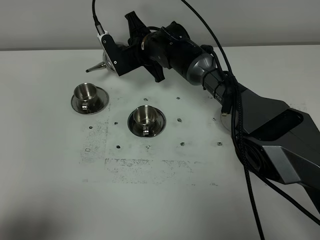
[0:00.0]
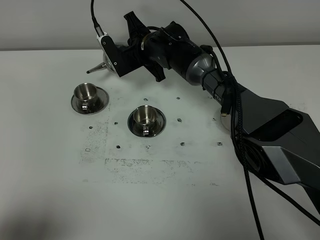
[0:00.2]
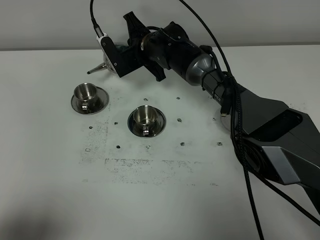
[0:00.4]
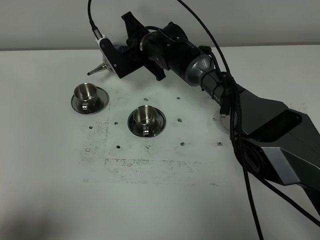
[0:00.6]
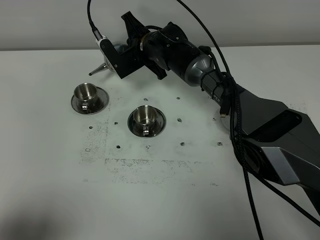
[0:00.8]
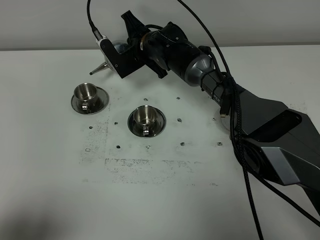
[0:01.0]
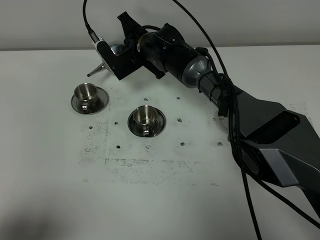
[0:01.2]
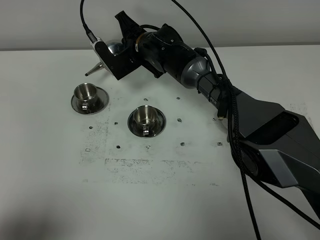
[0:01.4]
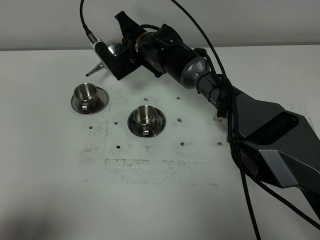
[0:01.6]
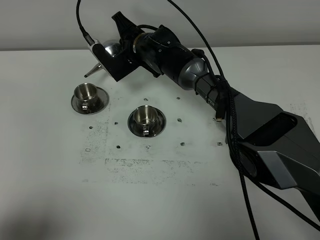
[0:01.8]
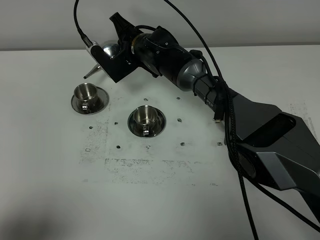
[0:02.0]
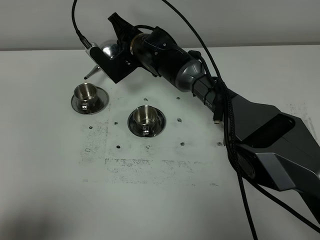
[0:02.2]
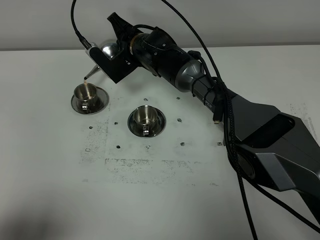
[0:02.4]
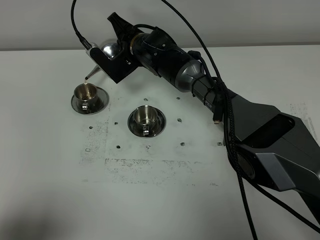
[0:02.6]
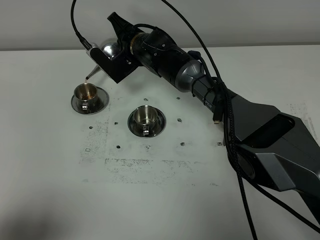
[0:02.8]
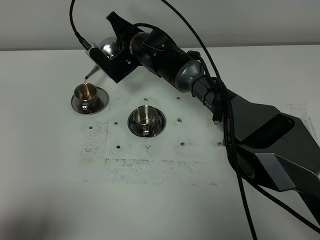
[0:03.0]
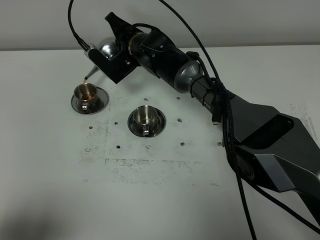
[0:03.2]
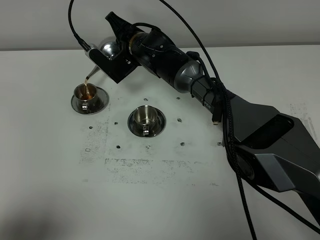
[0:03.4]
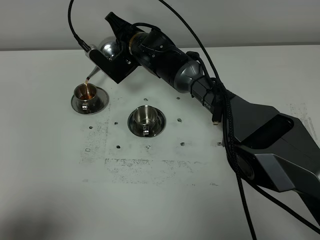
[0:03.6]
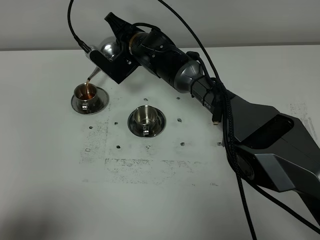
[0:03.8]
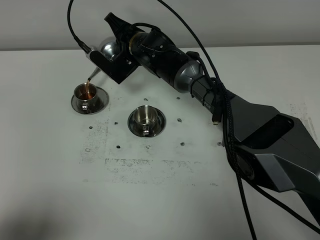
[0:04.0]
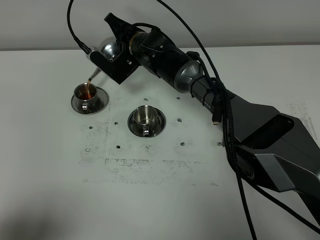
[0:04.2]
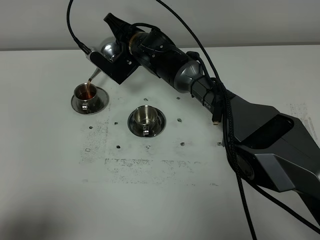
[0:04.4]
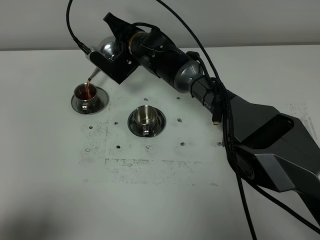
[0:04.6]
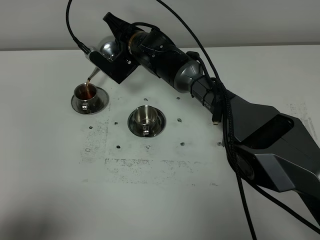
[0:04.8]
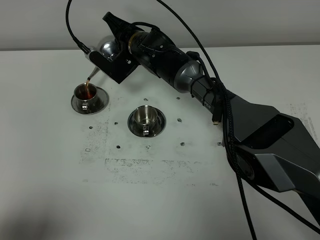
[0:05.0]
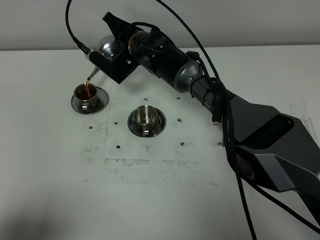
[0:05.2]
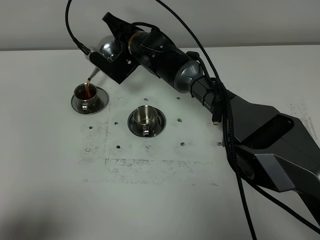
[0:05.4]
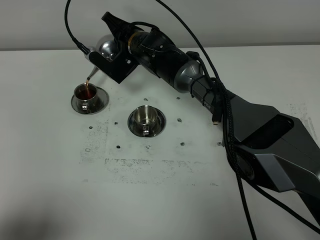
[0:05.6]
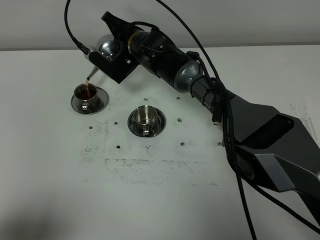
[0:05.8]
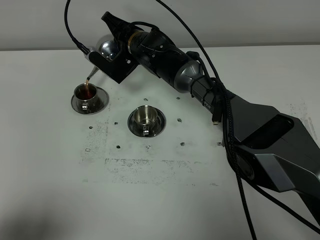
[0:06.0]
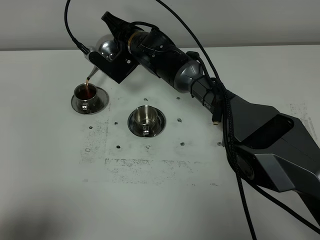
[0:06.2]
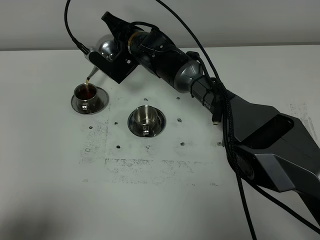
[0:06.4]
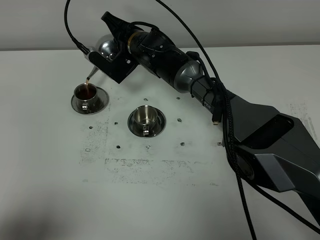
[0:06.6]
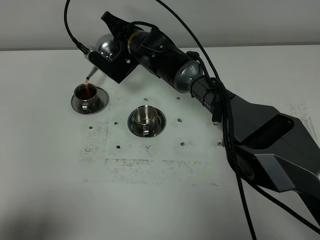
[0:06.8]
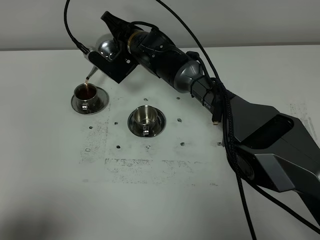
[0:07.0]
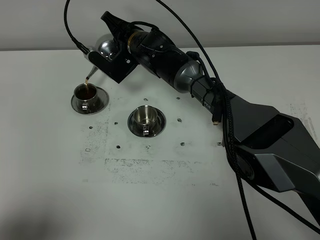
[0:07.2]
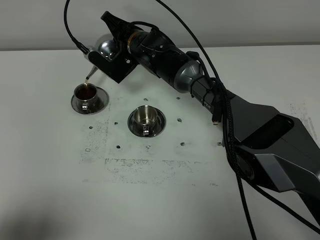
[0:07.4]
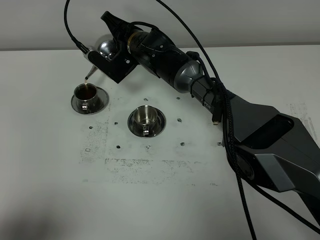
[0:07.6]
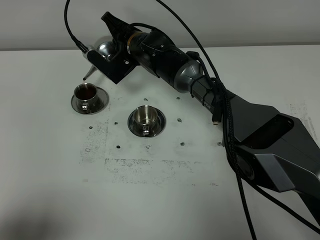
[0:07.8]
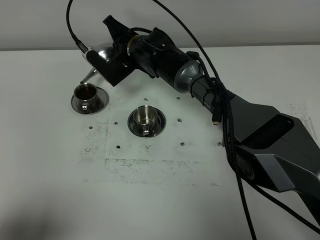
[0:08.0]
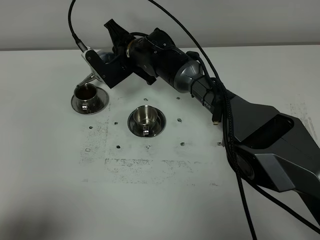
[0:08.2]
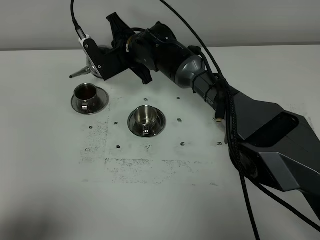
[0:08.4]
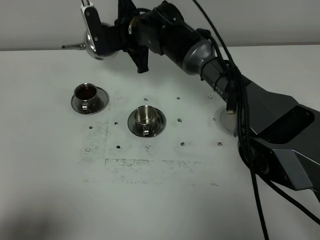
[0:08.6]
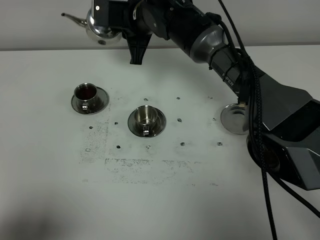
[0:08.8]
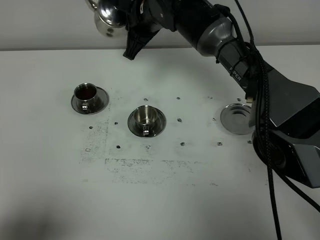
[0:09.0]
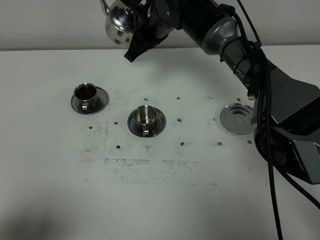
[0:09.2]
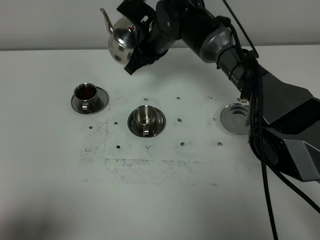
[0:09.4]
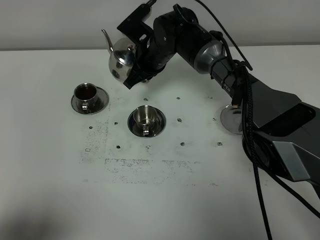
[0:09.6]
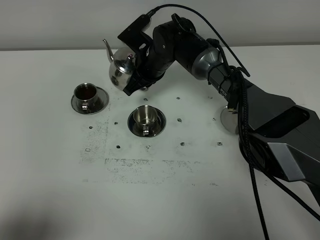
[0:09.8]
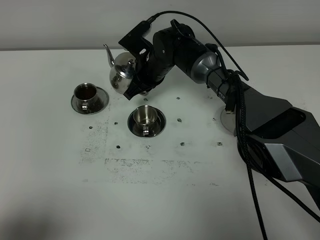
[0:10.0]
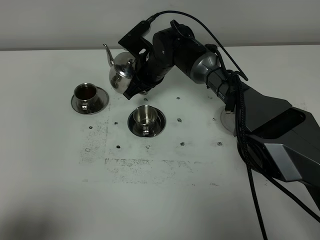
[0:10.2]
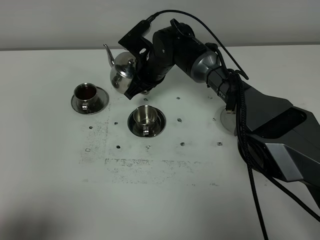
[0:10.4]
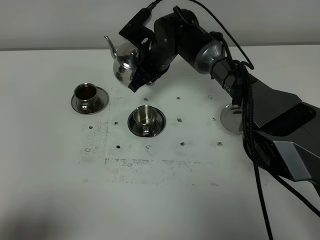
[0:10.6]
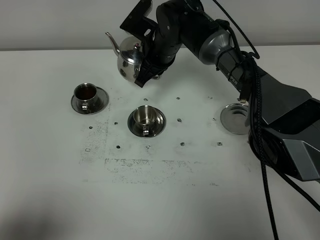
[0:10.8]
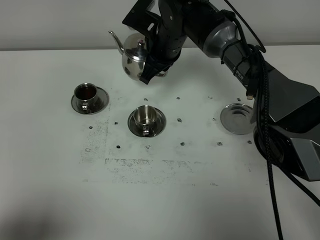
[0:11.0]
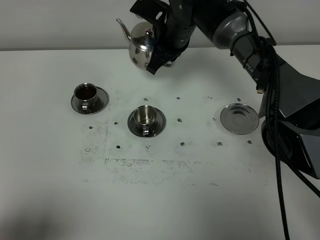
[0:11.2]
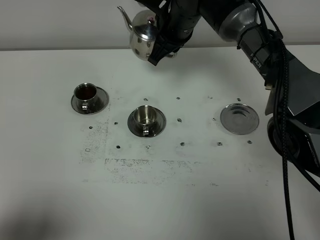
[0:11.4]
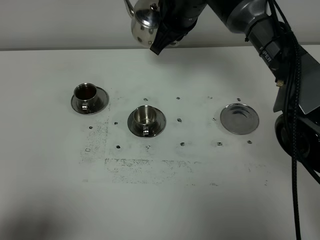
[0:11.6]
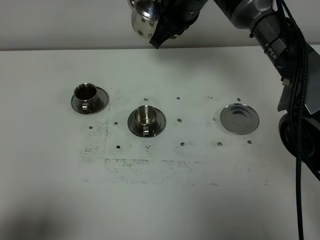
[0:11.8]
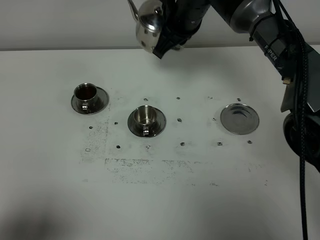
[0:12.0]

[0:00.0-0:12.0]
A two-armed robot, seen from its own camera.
Task of the whole recording: grasp the stainless steel teapot and pour the tea into the two stainless steel teacups one by one, put the stainless steel teapot back in its original place.
Step, 0:00.0 to 0:08.4: Pour tea into the teacup with the right gripper.
0:00.0 to 0:03.0: The grippers stay close to where they were, moving slightly.
0:03.0 to 0:04.4: The grippers make only small movements.
0:04.4 to 0:07.6: The two grippers keep their place.
0:07.6 to 0:09.0: The right gripper heads upward, covering approximately 10 cm.
0:09.0 to 0:10.4: The right gripper is displaced downward by roughly 10 cm.
0:10.4 to 0:12.0: The right gripper heads upward and to the right, covering some 15 cm.

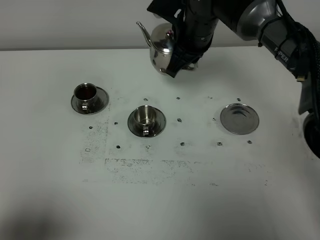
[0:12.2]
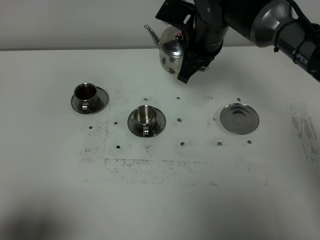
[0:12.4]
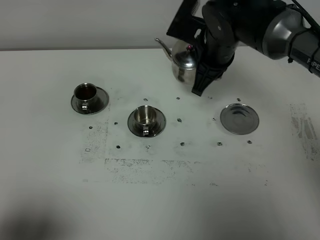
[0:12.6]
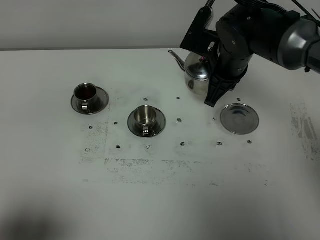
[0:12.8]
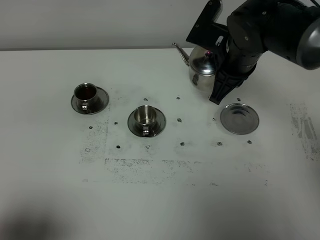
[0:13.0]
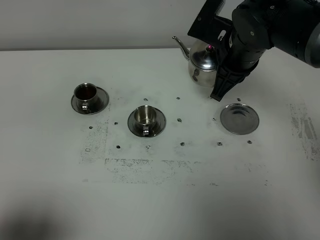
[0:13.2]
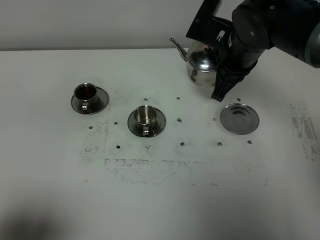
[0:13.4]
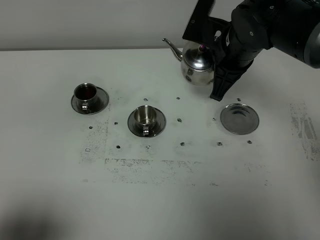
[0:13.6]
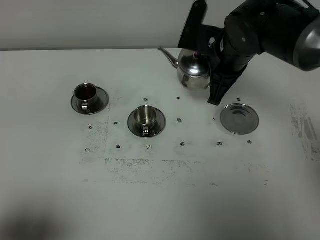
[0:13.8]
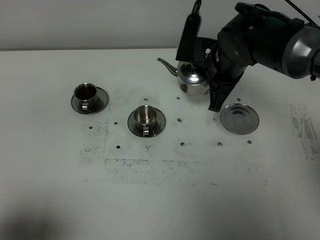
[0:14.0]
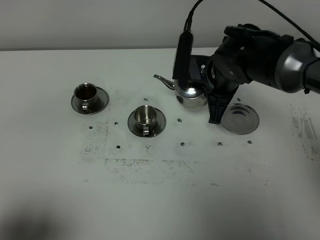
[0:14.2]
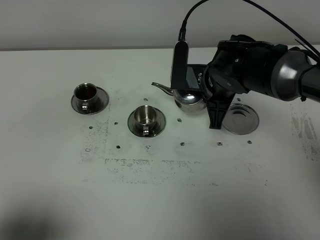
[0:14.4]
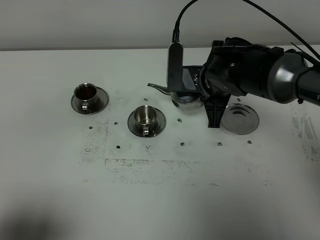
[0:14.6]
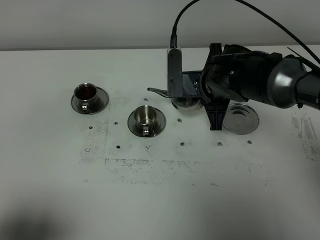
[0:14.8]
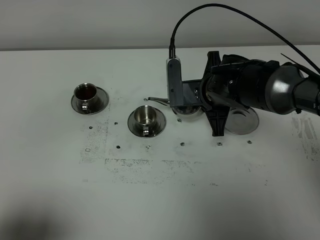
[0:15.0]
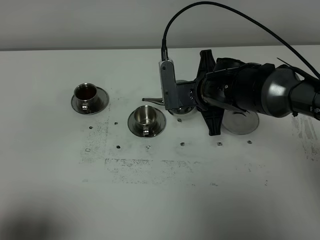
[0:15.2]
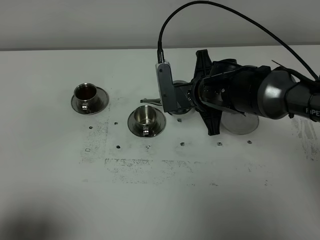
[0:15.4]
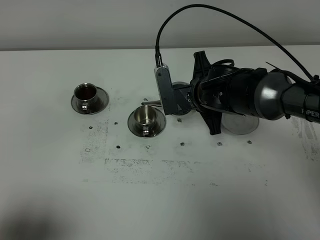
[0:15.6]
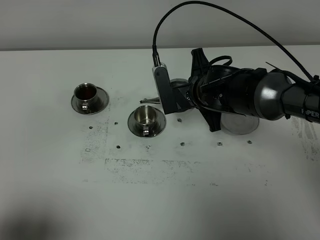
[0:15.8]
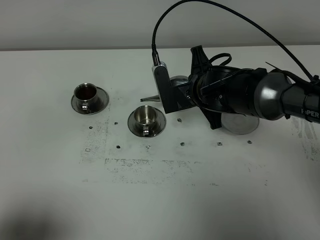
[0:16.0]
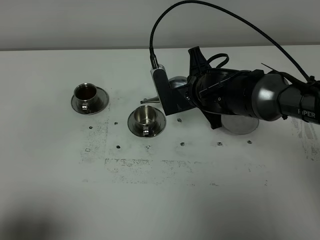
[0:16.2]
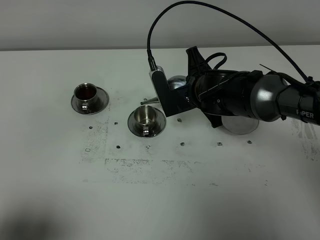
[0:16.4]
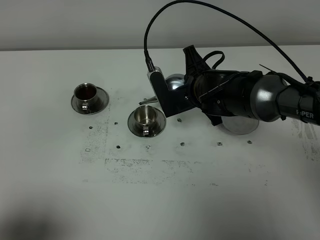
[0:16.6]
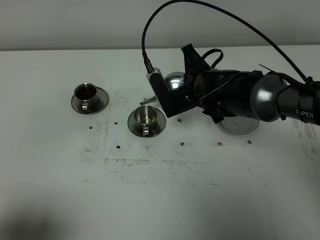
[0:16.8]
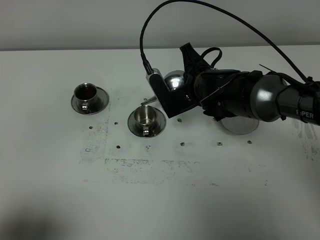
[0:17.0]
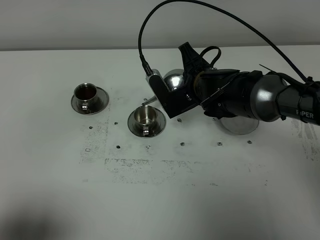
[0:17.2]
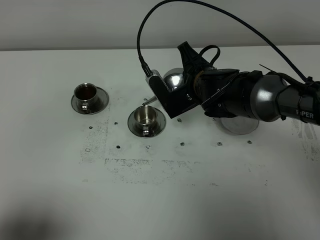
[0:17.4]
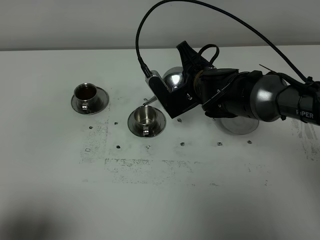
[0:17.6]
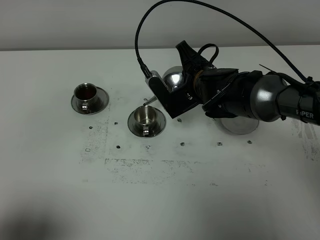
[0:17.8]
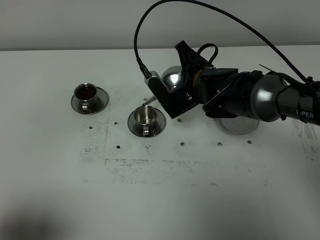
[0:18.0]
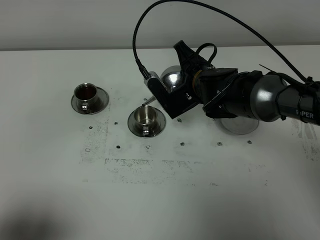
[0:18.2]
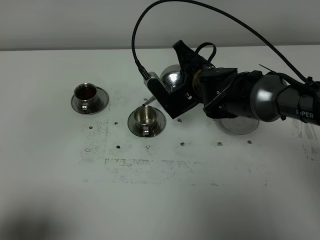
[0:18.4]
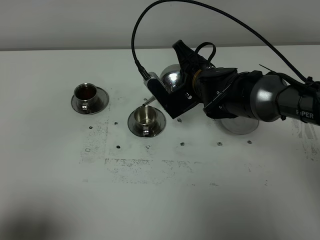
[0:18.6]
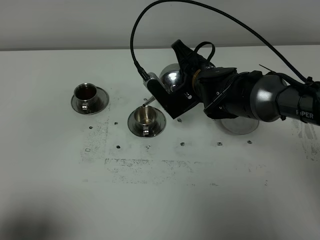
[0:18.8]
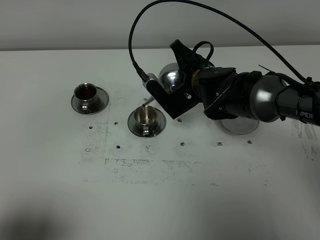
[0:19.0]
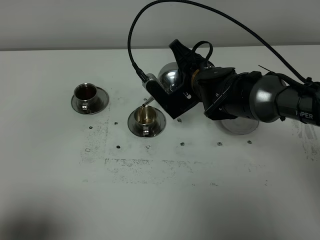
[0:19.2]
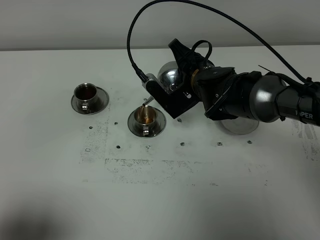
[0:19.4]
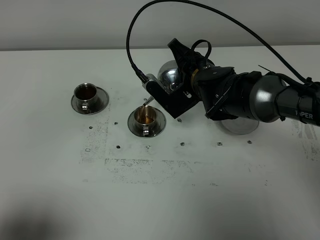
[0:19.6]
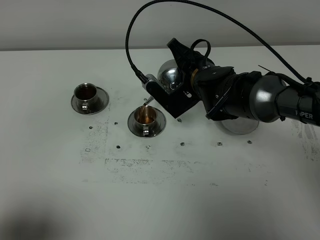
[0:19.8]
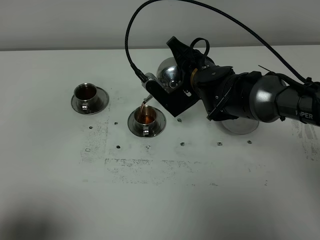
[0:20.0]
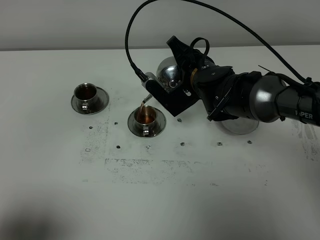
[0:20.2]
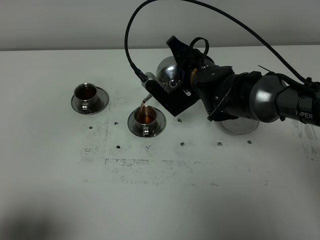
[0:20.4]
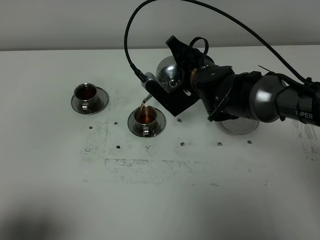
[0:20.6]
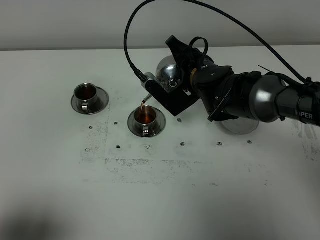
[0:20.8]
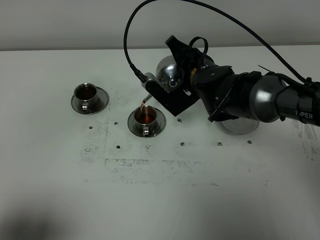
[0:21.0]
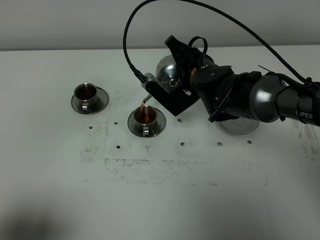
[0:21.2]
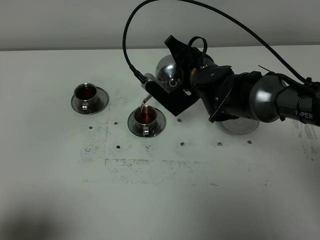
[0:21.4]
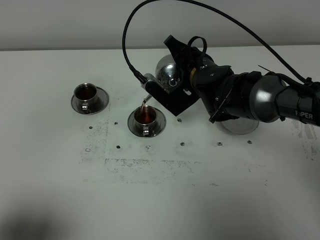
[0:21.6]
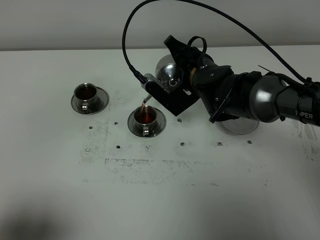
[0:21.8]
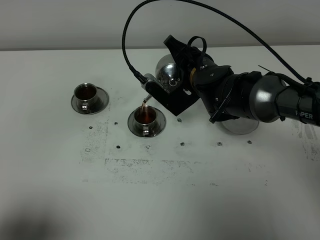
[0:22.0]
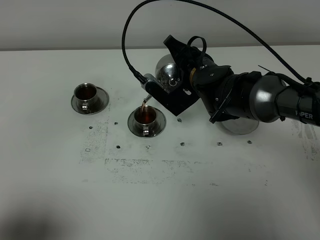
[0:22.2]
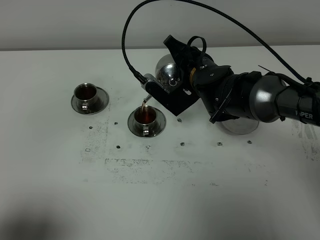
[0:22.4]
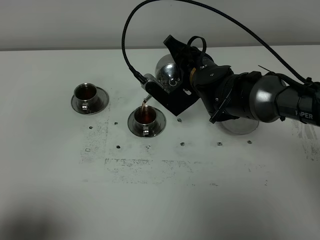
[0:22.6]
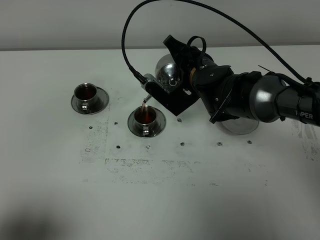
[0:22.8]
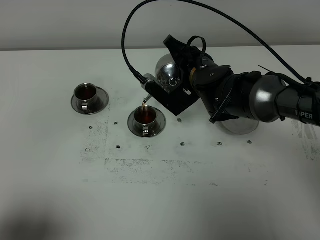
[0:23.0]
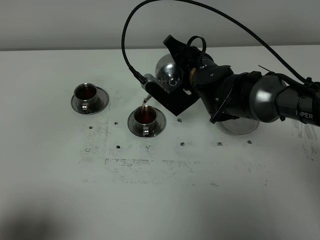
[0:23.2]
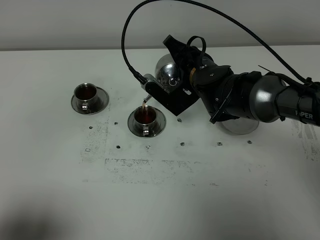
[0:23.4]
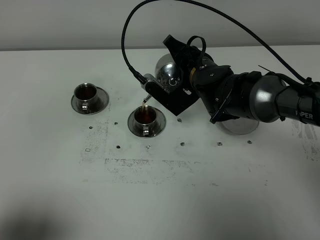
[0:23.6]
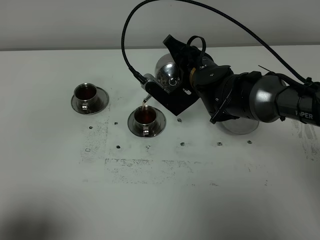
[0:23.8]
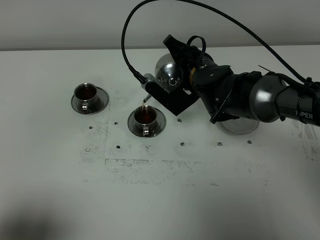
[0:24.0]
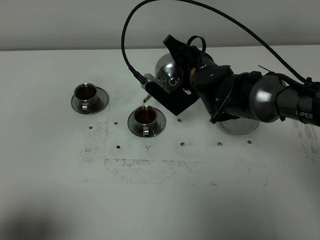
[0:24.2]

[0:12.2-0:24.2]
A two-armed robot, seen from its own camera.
Task of the whole recording: grasp the stainless steel teapot and pour the tea into the two stainless steel teacups one by one, put the stainless steel teapot back in its original place.
0:12.2 to 0:13.8: The right gripper shifts some 5 cm backward.
0:13.8 to 0:15.2: The right gripper goes approximately 5 cm downward.
0:15.2 to 0:16.6: The grippers move only a little.
0:16.6 to 0:18.2: The grippers stay close to where they were, moving slightly.
0:18.2 to 0:19.8: The grippers stay close to where they were, moving slightly.
0:19.8 to 0:22.6: Neither gripper changes place.
0:22.6 to 0:24.2: Both grippers stay about where they are.
